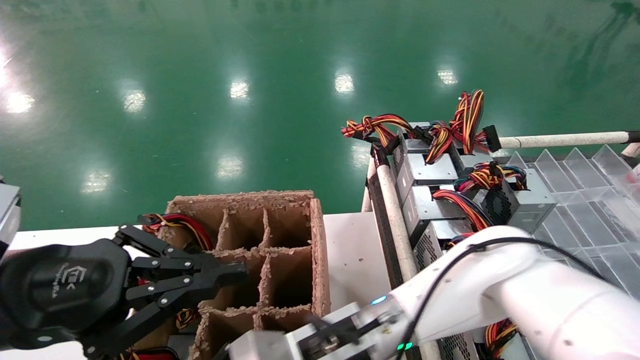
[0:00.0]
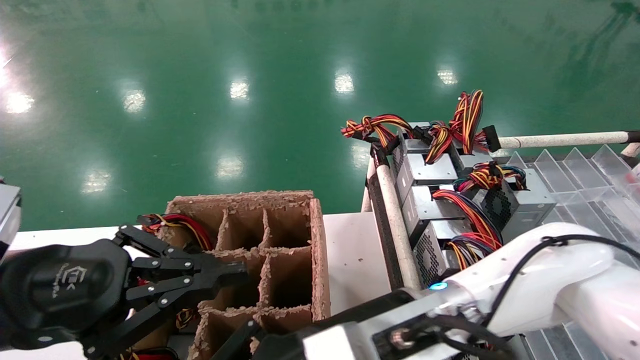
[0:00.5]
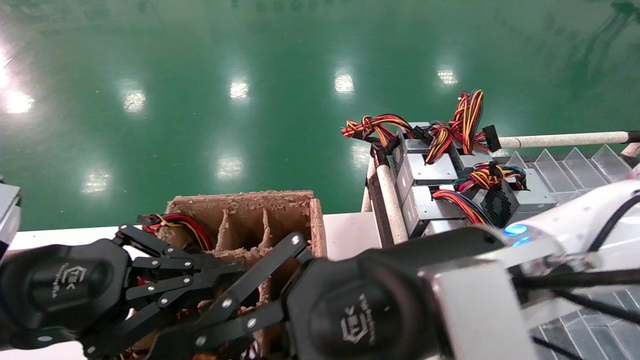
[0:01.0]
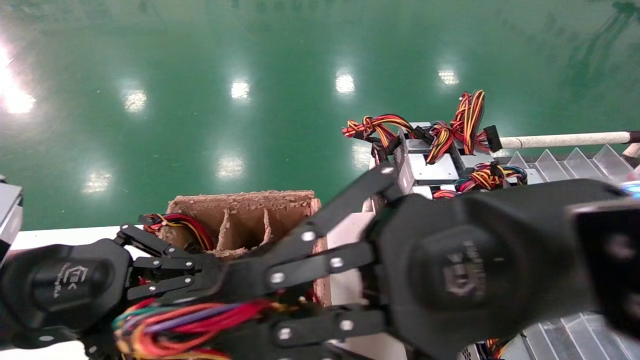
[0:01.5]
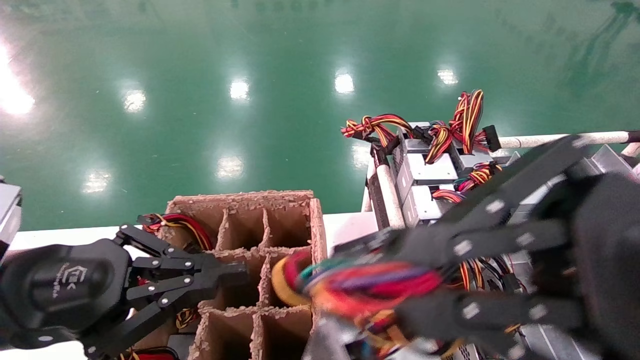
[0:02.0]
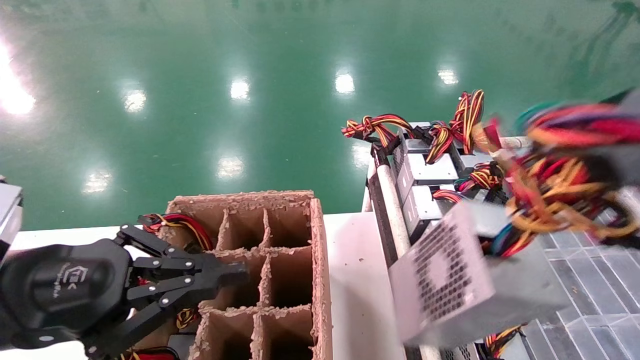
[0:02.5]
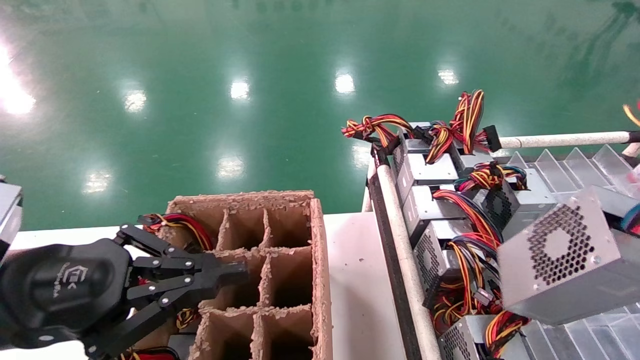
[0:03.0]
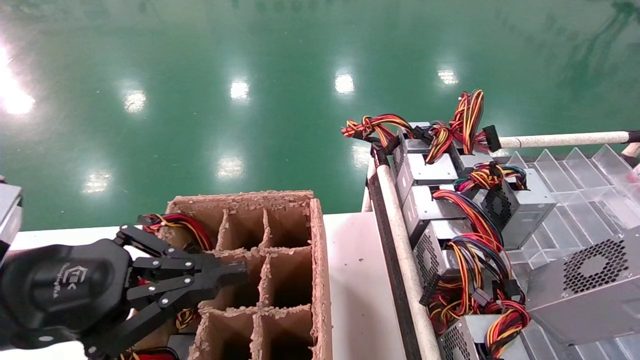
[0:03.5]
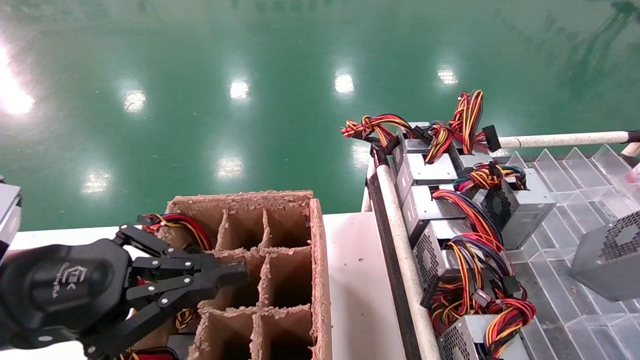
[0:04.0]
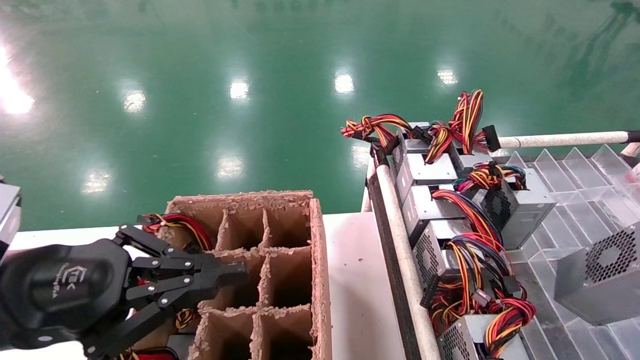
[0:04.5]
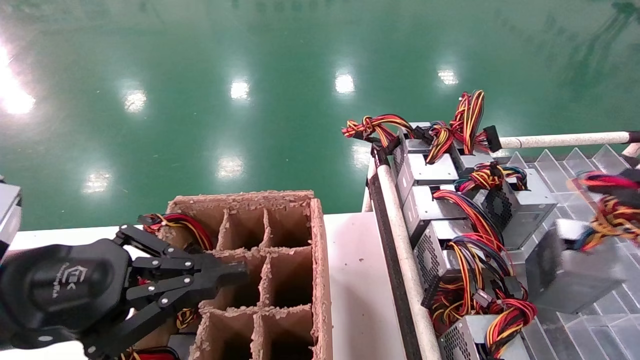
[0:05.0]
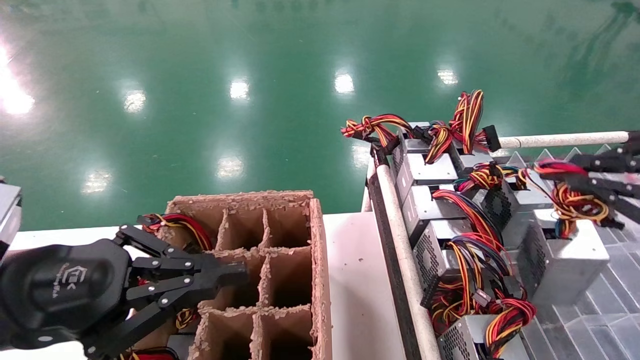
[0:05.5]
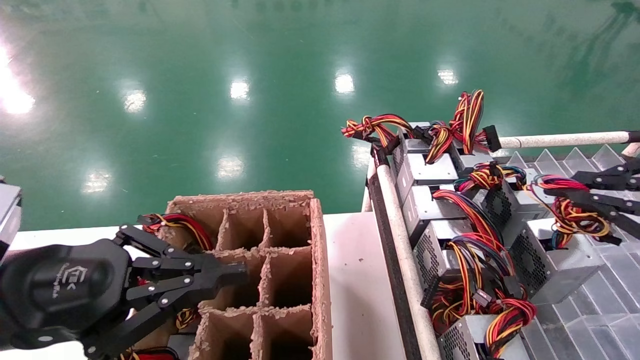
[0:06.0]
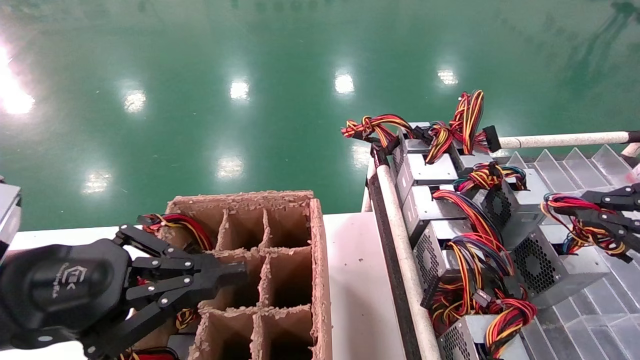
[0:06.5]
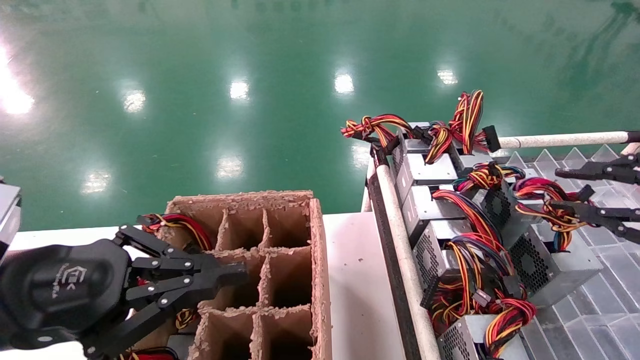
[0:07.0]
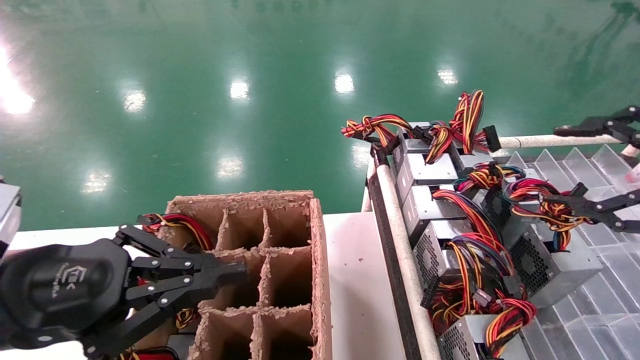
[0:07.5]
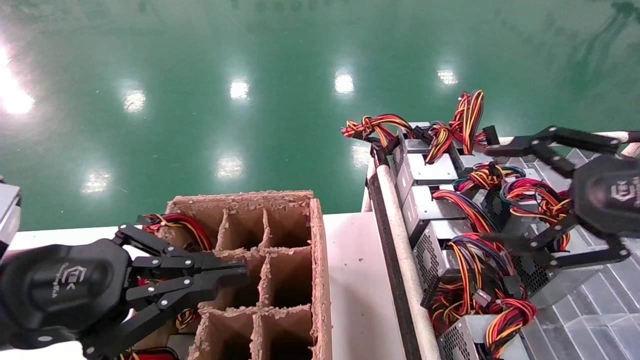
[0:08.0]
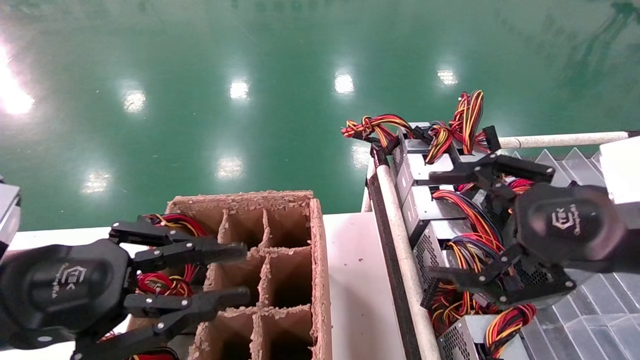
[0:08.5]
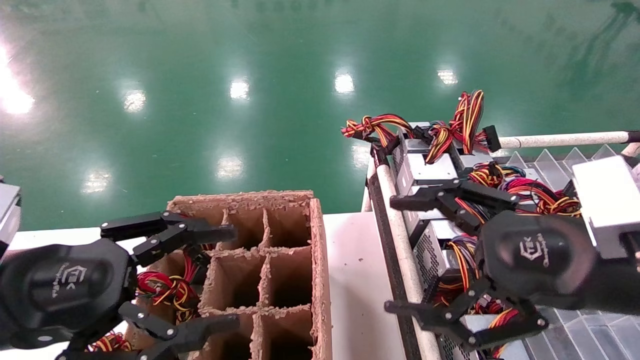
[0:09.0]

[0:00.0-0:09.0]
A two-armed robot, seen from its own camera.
Step, 0:00.0 to 0:06.5: Place the main unit power supply in the designated area.
0:00.0 to 0:02.0: The right gripper travels to the right, upward and backward by about 30 cm.
0:02.0 to 0:04.5: The right gripper shifts approximately 30 cm to the right.
0:04.5 to 0:07.0: The right gripper goes some 10 cm forward and to the left.
0:07.0 to 0:09.0: The right gripper is displaced to the left by roughly 20 cm, and opens; the left gripper opens.
